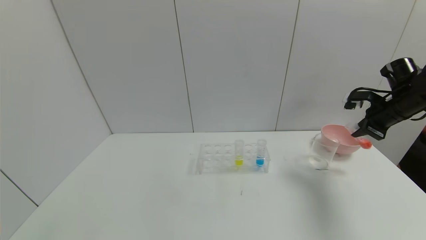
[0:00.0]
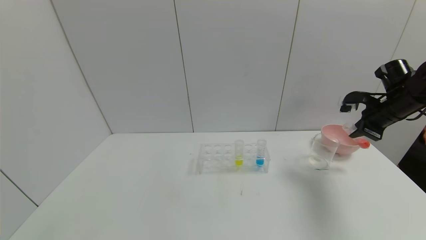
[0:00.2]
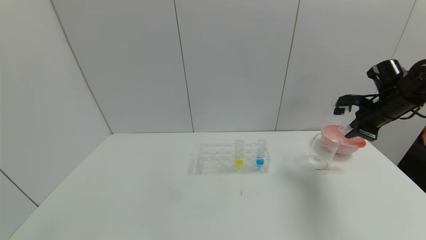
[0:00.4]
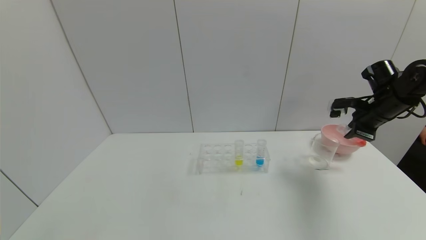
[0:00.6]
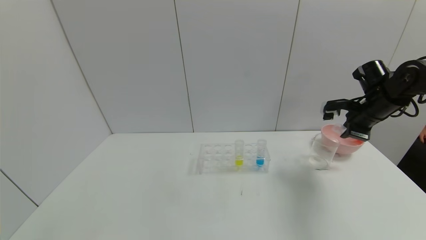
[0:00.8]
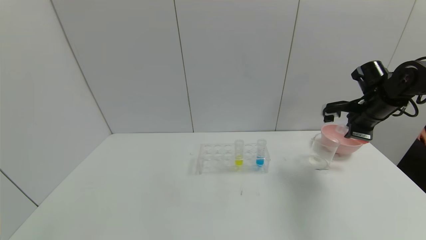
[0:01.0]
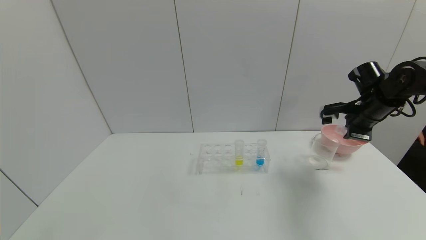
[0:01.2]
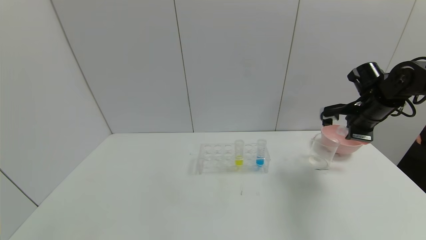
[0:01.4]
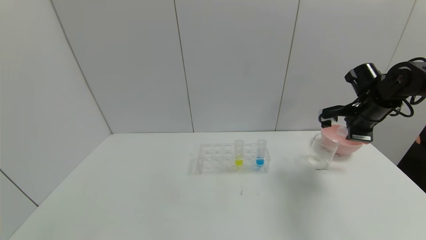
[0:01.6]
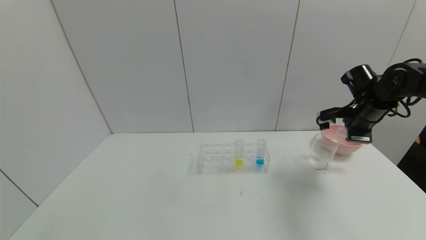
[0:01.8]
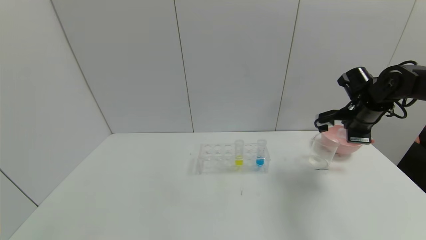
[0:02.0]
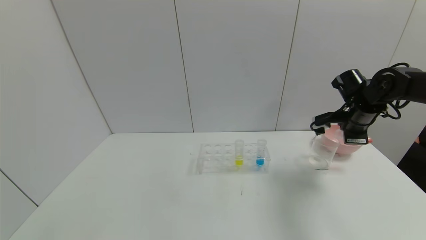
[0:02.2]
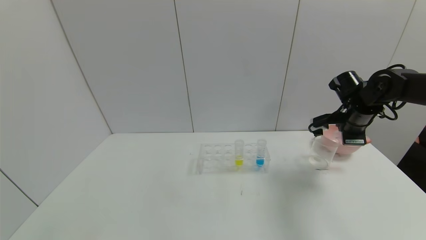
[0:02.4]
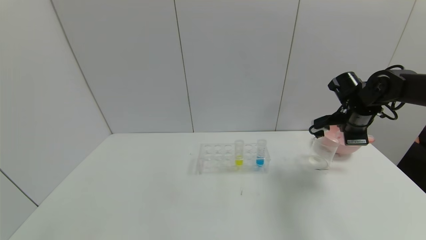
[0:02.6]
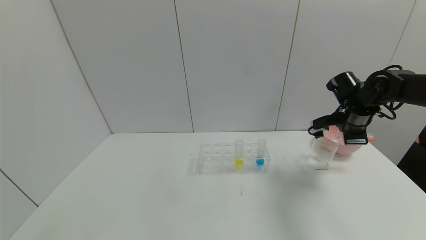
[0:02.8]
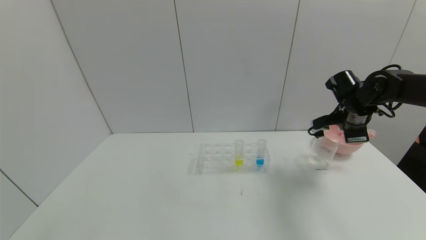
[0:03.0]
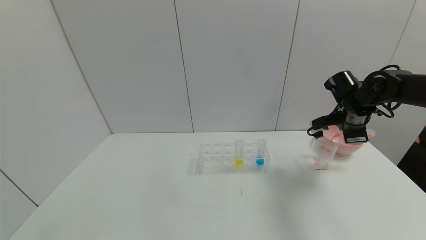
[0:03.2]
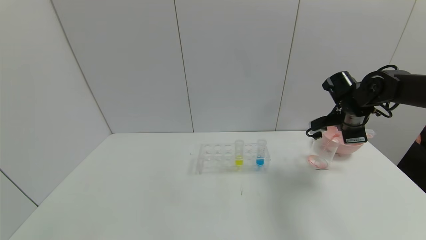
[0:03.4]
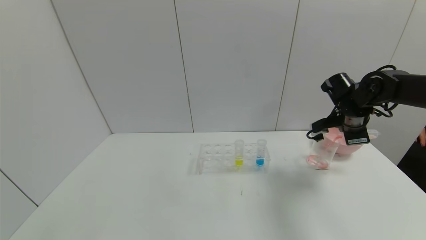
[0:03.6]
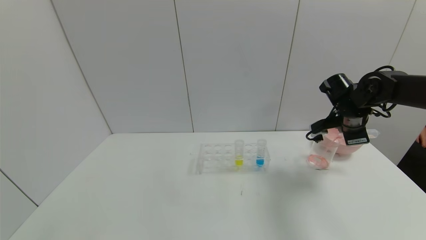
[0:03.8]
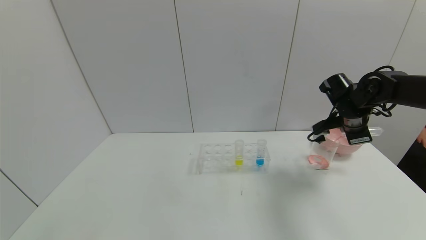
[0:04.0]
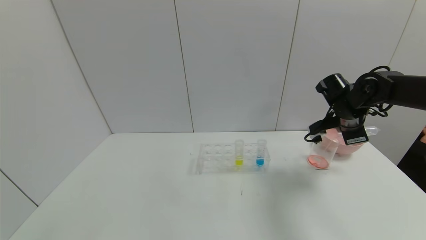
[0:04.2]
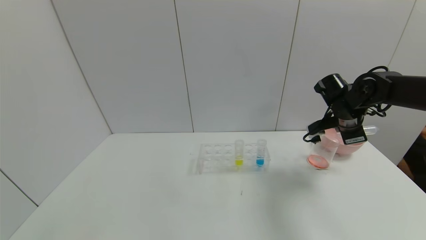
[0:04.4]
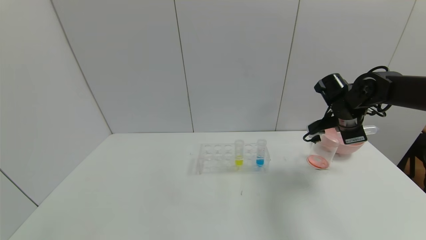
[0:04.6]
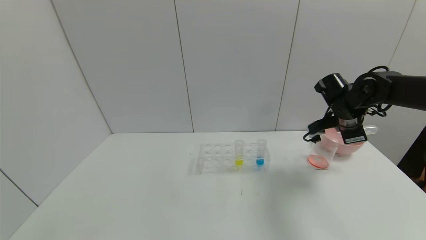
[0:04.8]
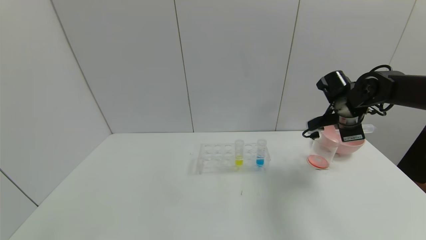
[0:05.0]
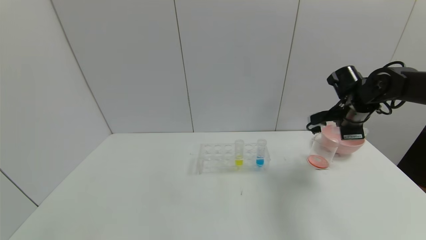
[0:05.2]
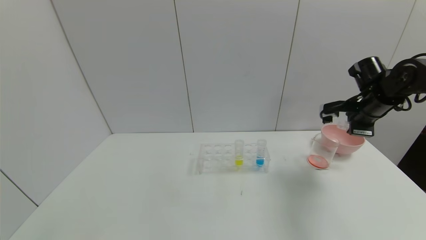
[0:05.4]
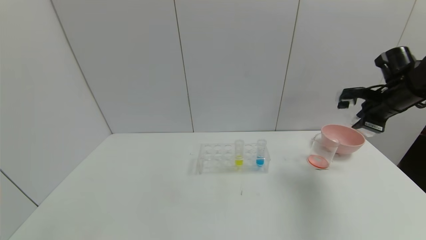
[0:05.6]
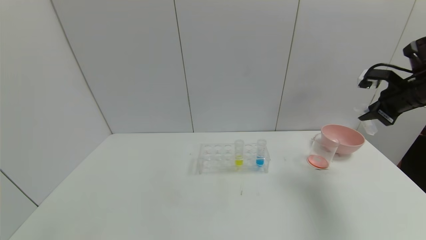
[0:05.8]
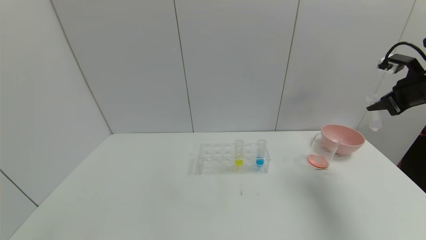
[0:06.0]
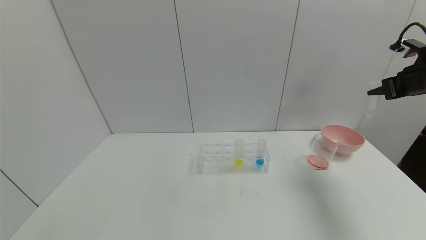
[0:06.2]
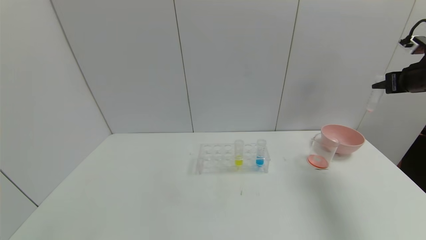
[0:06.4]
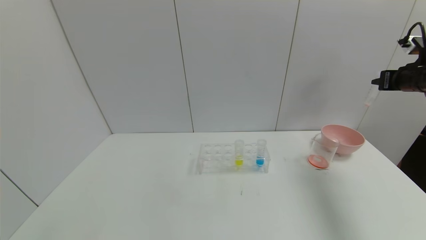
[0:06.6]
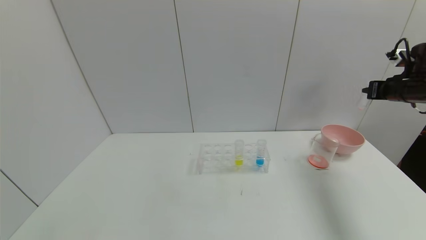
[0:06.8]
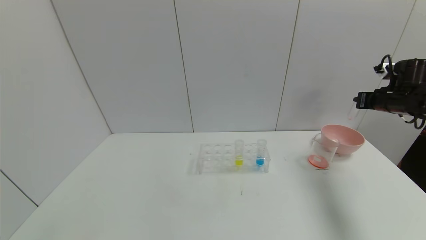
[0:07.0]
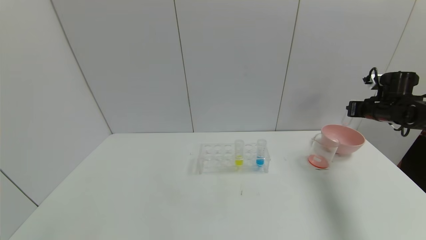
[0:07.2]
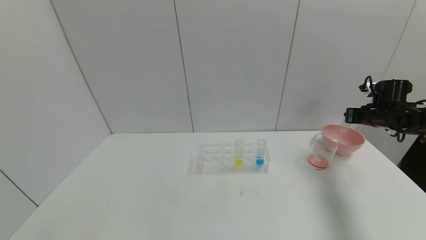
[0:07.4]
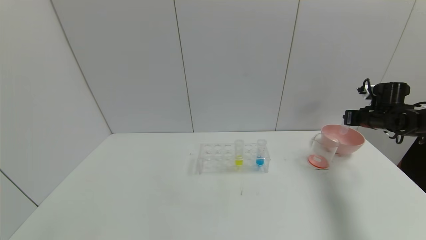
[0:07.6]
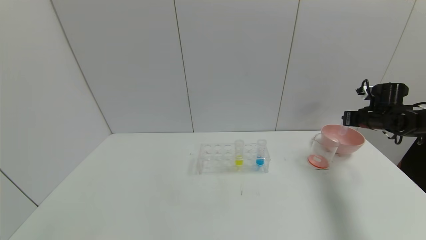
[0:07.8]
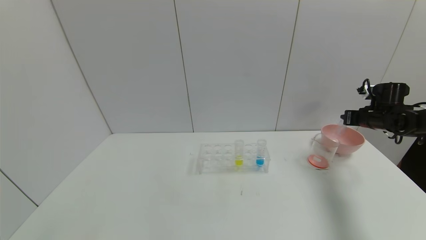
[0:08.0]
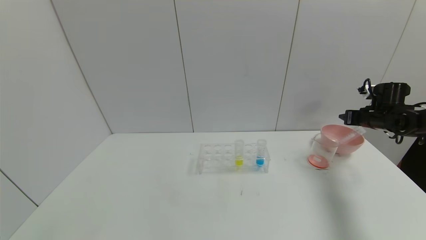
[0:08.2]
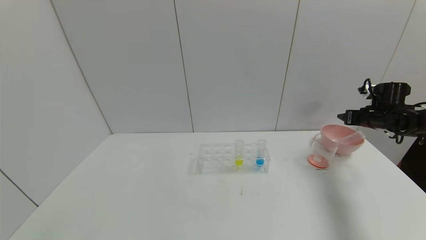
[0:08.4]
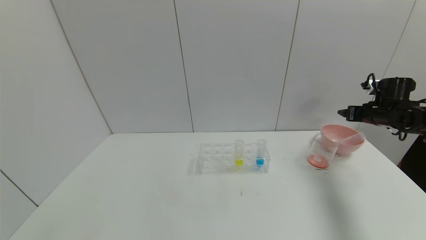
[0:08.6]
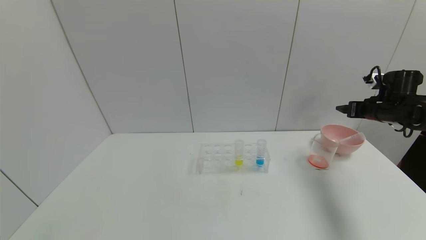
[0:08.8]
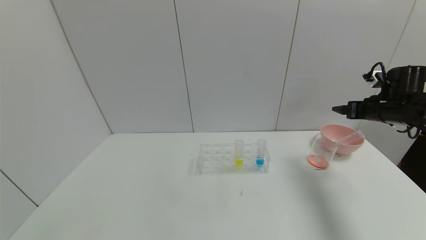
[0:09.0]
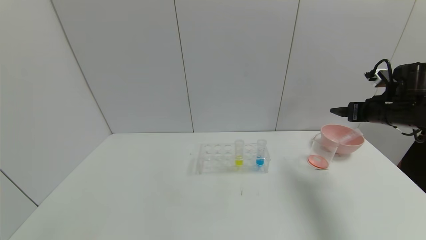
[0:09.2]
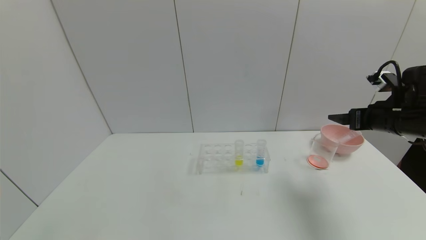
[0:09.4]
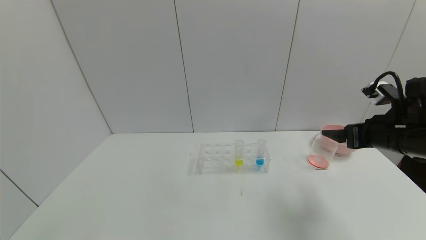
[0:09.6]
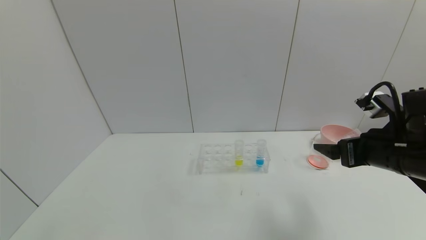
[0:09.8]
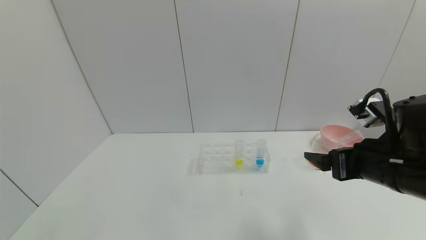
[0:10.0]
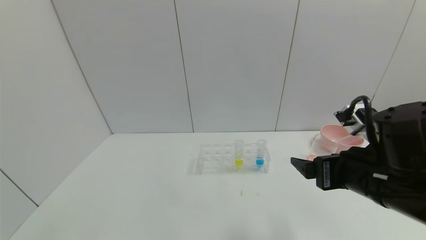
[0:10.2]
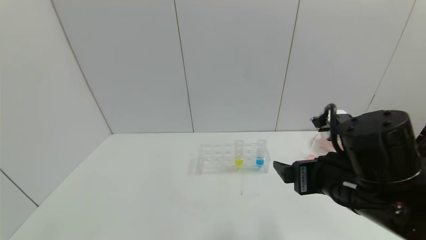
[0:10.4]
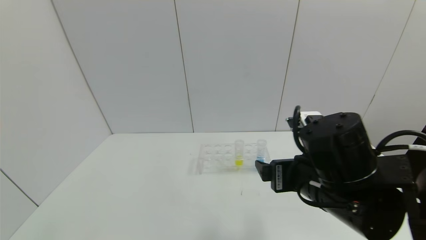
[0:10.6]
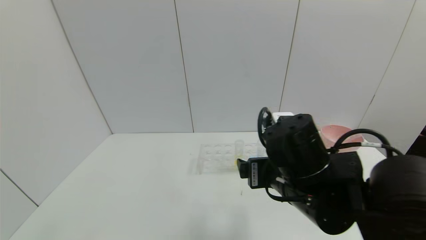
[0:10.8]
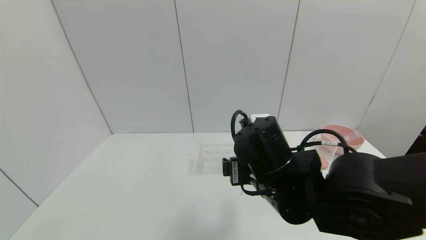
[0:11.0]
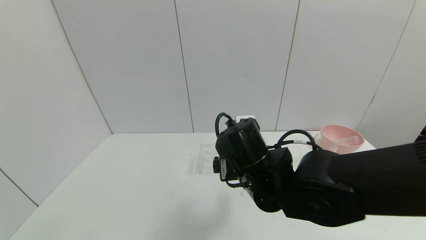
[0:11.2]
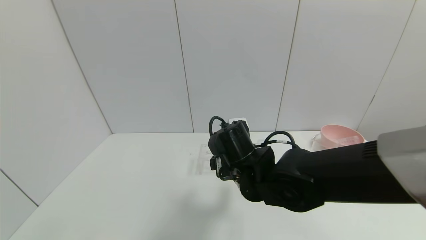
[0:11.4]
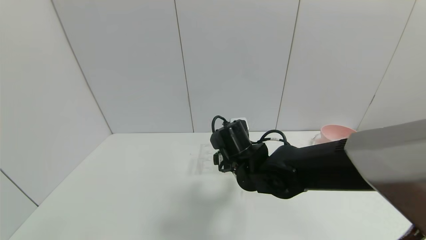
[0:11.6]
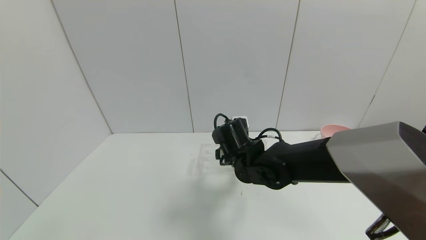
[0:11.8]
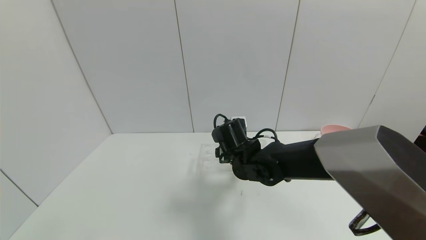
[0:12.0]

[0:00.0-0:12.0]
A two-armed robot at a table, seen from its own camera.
Task of the whole recording: pick up the test tube with yellow pigment and the test tube with red pigment by grippers and pour them into the beaker.
Step, 0:00.0 to 0:04.8: Pour the red reagent into the graduated cylinder with the right gripper.
Step, 0:05.0 to 0:08.4: Place the test tube into the pink bowl with the right gripper.
0:00.0 to 0:01.6: The right gripper is displaced to the left by approximately 5 cm.
0:01.6 to 0:03.0: The grippers make only small movements.
0:03.0 to 0:04.4: The grippers stay close to where they were, moving slightly.
0:04.4 to 0:06.0: The right gripper shifts some 15 cm to the right and upward.
0:06.0 to 0:07.6: The right gripper goes approximately 15 cm downward and forward.
0:07.6 to 0:09.0: The right gripper shifts about 10 cm backward and upward, and opens its fingers.
0:09.0 to 0:10.4: The right gripper goes approximately 30 cm to the left and backward.
0:10.4 to 0:12.0: The right gripper shifts roughly 25 cm forward, to the left and downward.

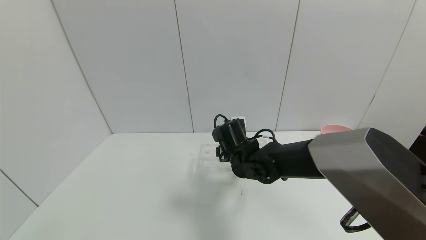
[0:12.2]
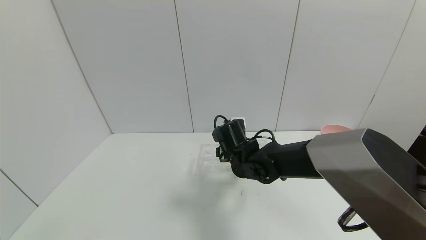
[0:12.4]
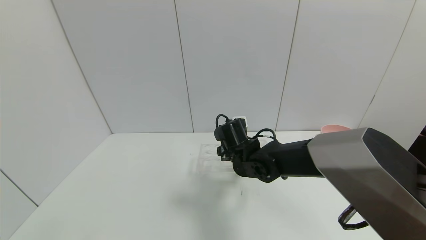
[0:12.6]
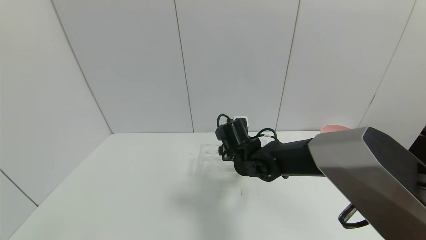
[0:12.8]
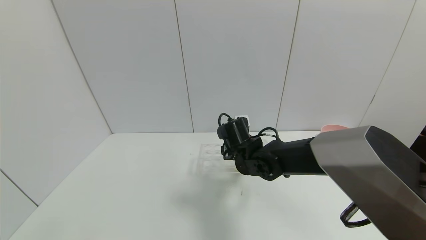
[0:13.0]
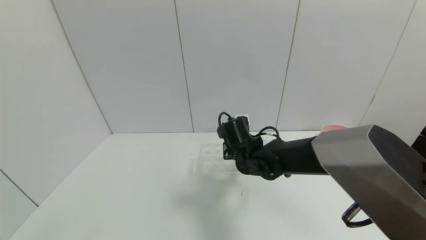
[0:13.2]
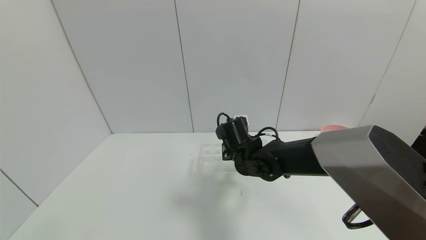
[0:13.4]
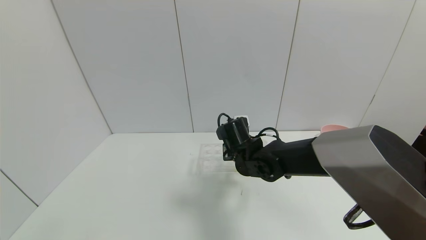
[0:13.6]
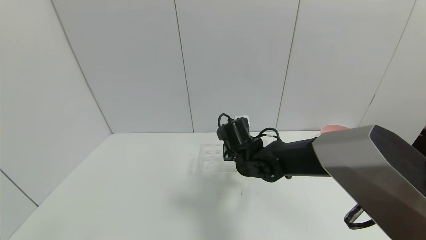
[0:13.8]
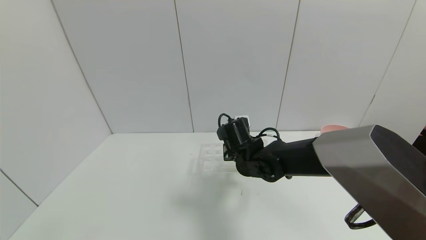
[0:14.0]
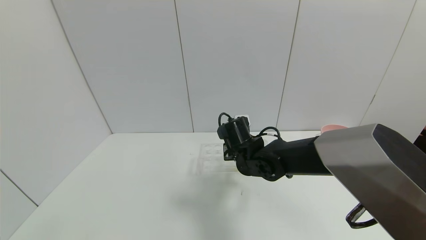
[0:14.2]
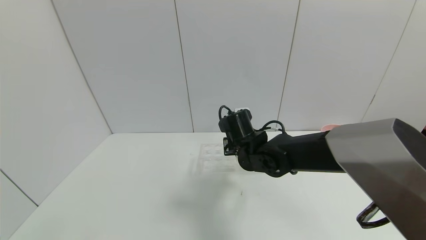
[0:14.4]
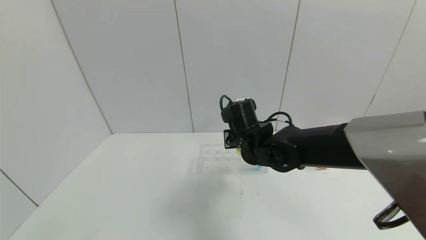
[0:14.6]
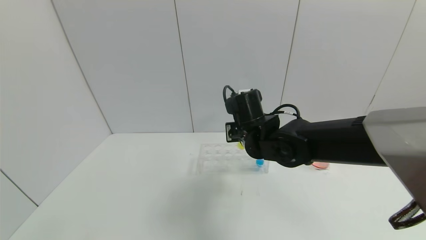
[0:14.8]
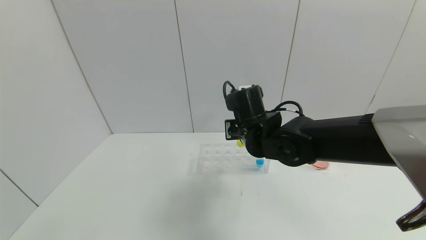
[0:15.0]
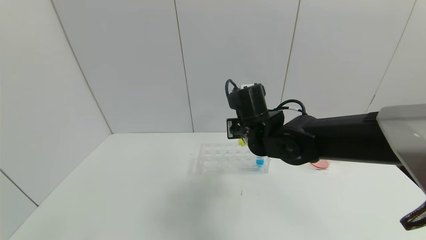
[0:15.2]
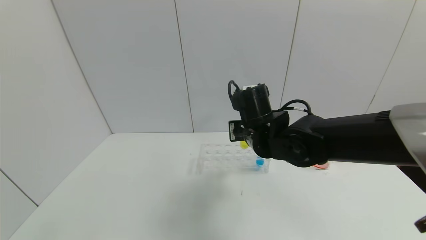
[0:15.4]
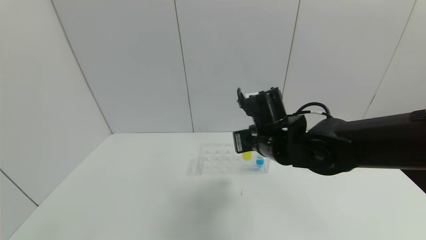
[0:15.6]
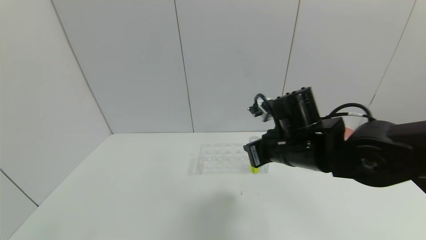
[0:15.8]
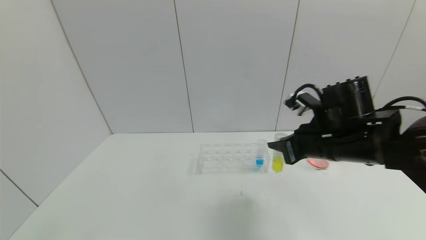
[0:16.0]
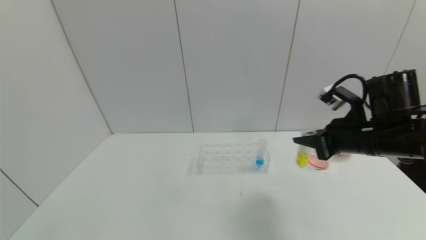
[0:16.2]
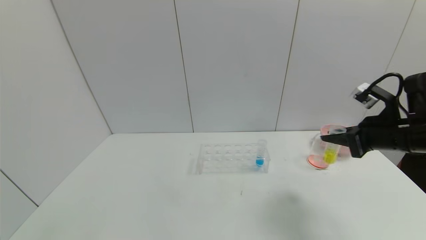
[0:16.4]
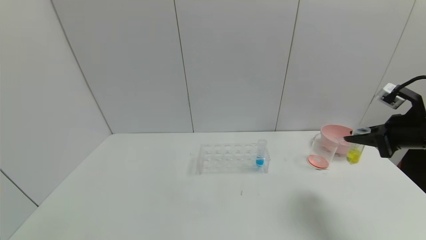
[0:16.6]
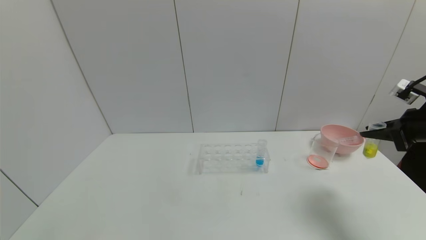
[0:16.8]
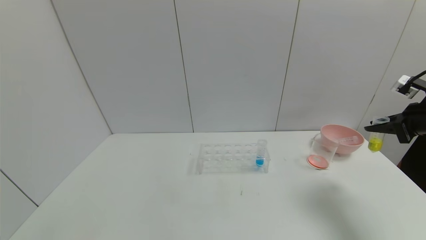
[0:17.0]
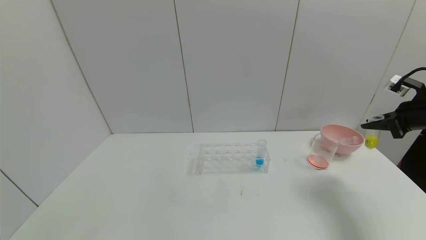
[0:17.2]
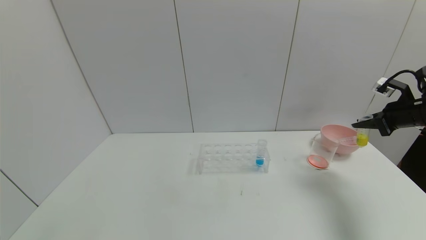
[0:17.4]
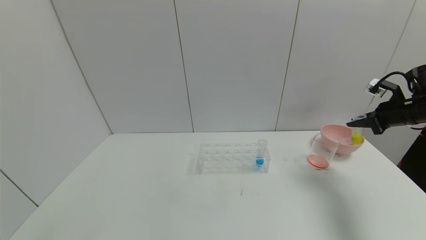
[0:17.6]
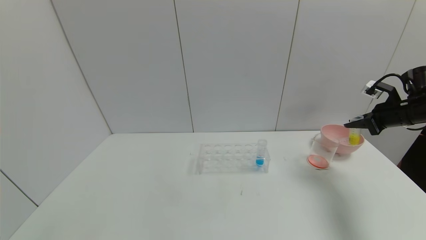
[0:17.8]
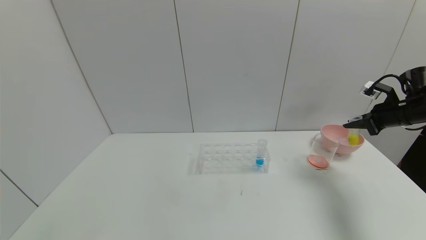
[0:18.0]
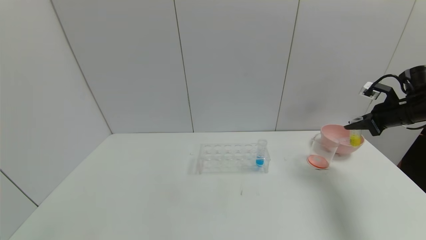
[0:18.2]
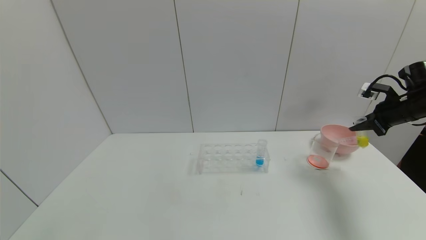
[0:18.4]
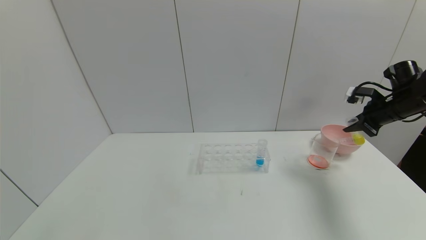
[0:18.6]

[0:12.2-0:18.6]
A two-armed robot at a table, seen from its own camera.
Task of the whole recording: pick up the test tube with yellow pigment and the test tube with red pigment by grippers and pour them into the beaker.
0:12.2 to 0:13.8: The right gripper closes up.
0:13.8 to 0:15.4: The right gripper is displaced upward by roughly 10 cm.
0:15.4 to 0:17.0: The right gripper is displaced to the right by approximately 35 cm.
0:17.0 to 0:18.6: The right gripper shifts roughly 10 cm forward.
